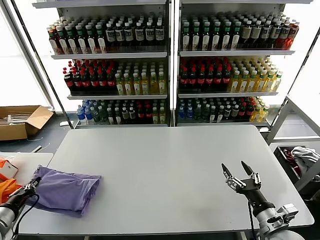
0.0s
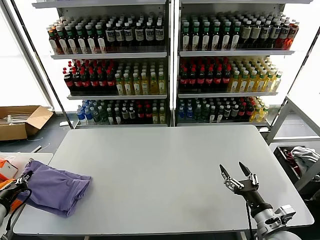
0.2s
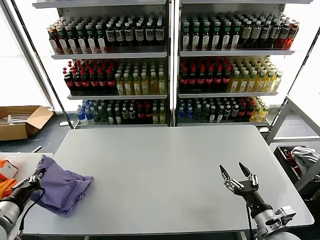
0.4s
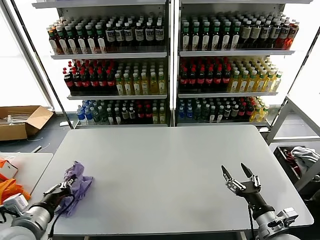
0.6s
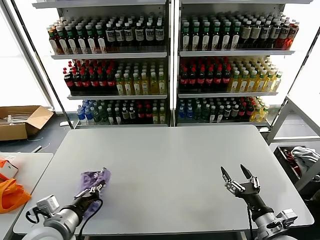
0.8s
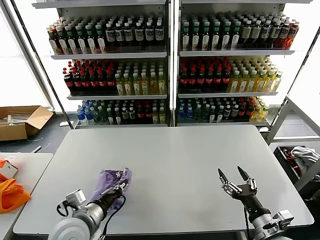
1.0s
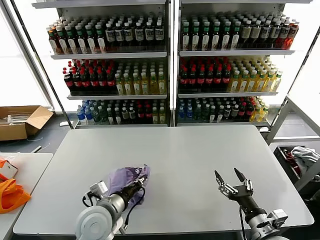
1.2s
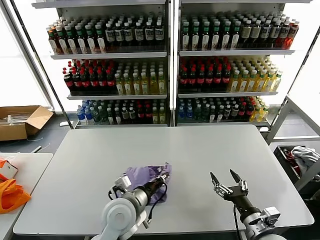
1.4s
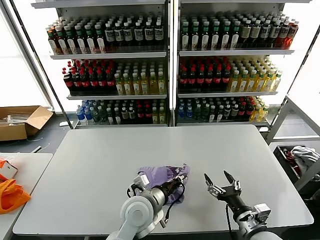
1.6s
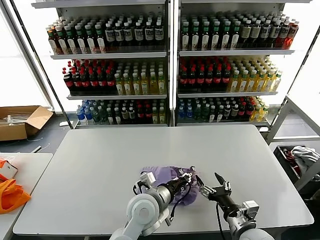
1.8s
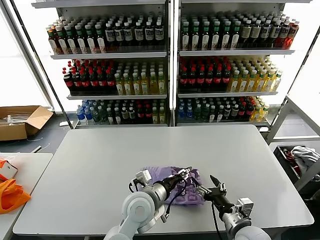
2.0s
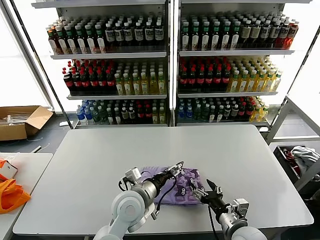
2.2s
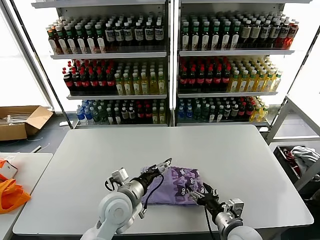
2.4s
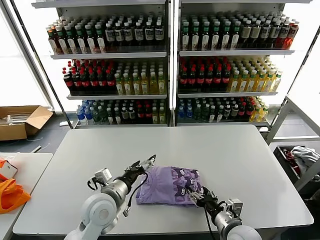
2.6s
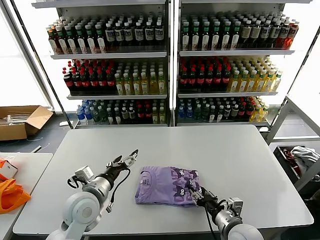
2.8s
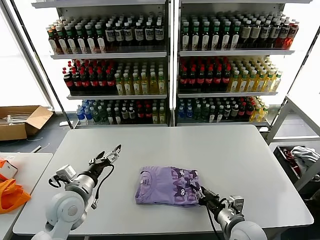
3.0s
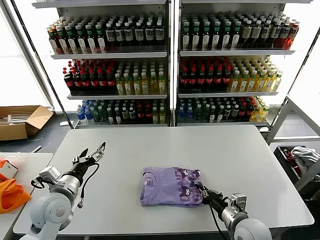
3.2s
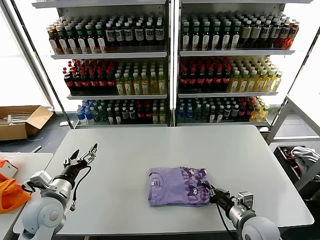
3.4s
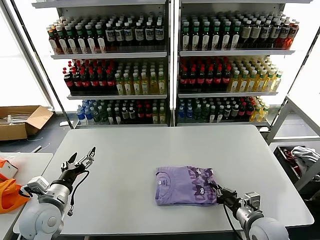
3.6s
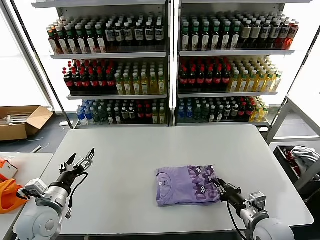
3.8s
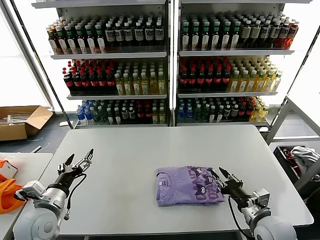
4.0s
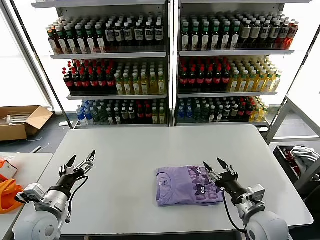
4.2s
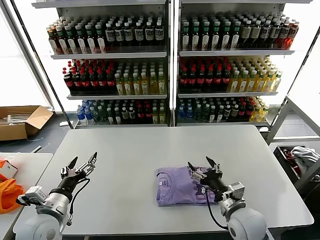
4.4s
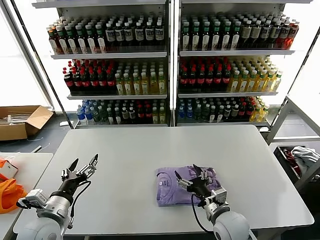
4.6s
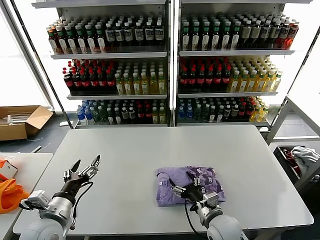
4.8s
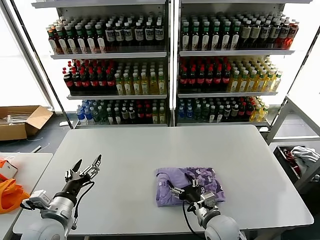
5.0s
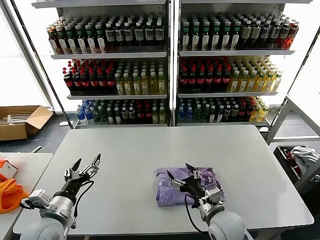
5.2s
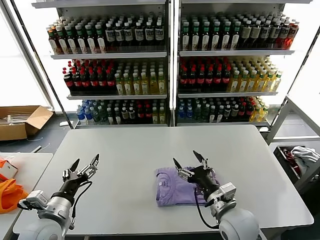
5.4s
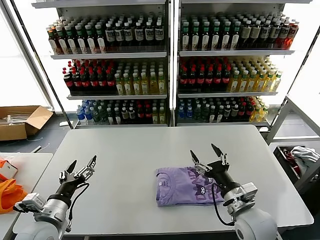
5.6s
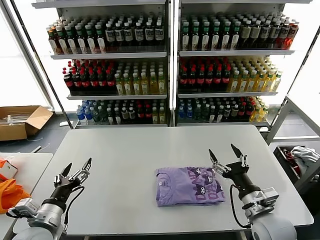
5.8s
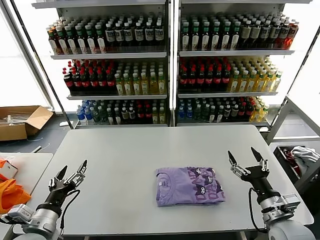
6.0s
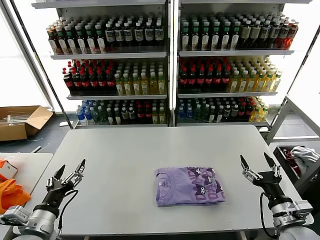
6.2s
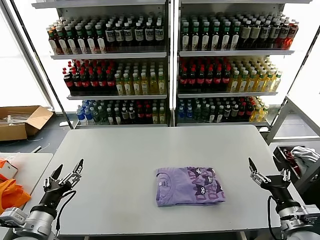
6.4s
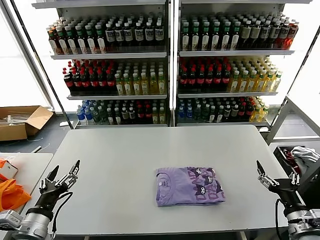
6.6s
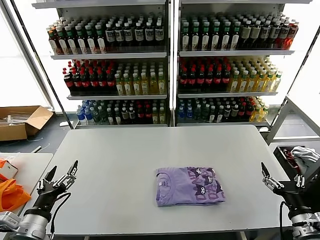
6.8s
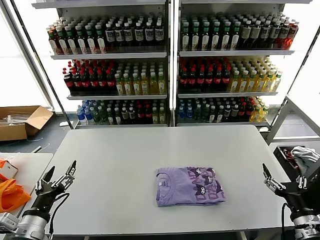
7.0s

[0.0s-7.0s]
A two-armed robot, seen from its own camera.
Task of the whole recording: fold and organize the clothes.
Step, 2.0s to 5.0s: Drag the clothes to the center of the table.
0.0s to 1.4s: The left gripper goes about 30 cm to the right.
1.4s to 2.8s: Both grippers move to the left, roughly 10 cm. The right gripper closes; the left gripper opens.
2.8s to 4.2s: The right gripper is displaced to the right by some 5 cm, and closes, then reopens; the left gripper is displaced to the left and backward by some 15 cm.
4.2s to 5.6s: The right gripper goes some 5 cm to the left, and opens.
5.6s to 7.0s: The right gripper shifts roughly 20 cm to the right and backward. Meanwhile the left gripper shifts approximately 5 cm backward.
